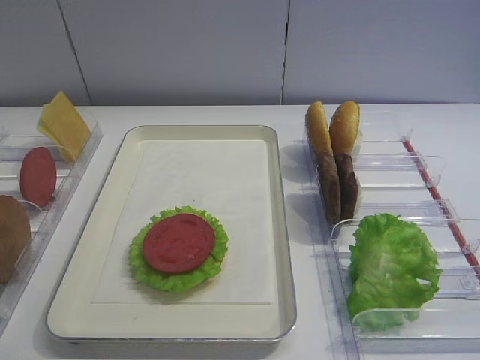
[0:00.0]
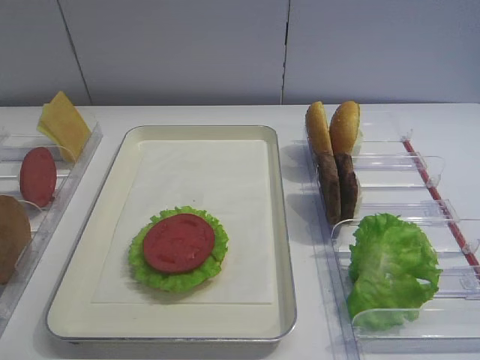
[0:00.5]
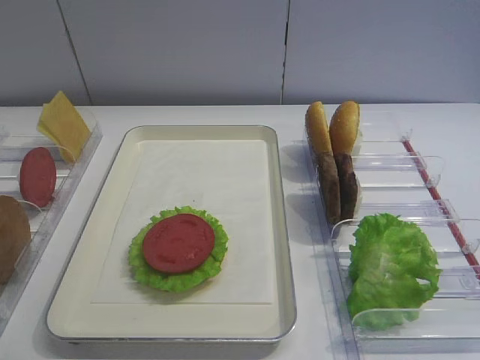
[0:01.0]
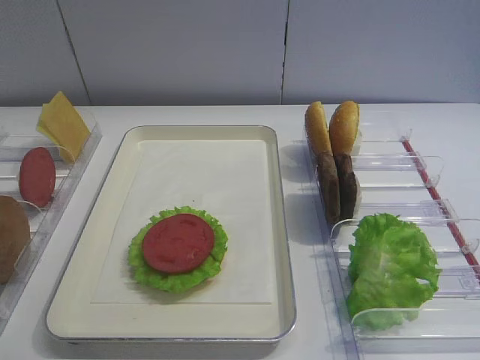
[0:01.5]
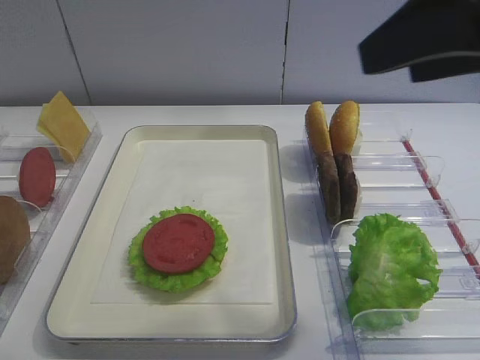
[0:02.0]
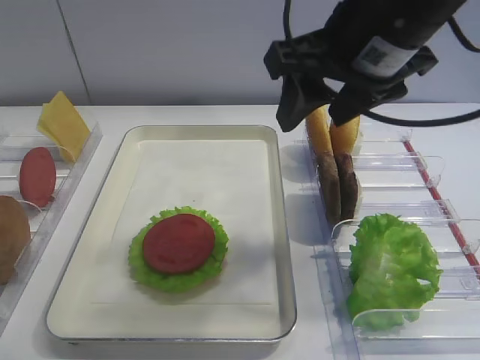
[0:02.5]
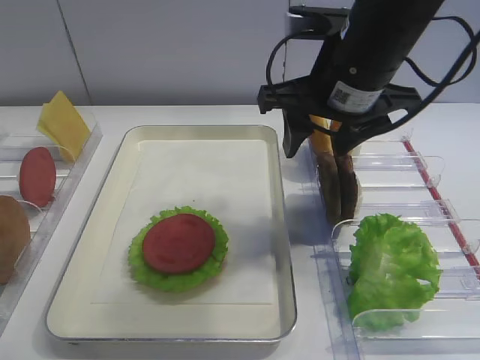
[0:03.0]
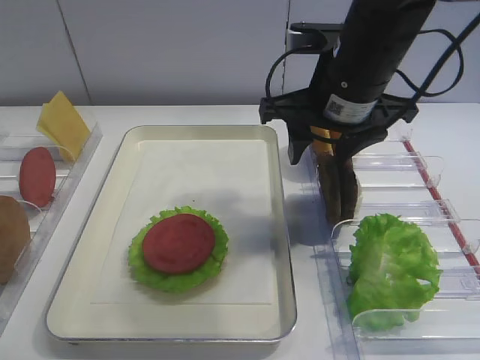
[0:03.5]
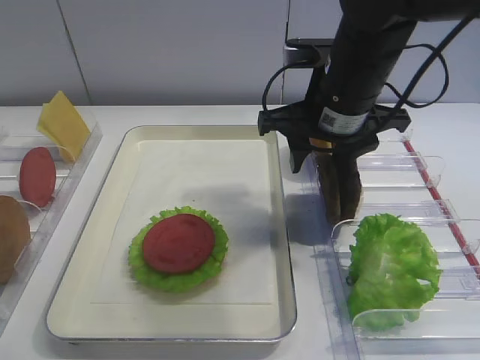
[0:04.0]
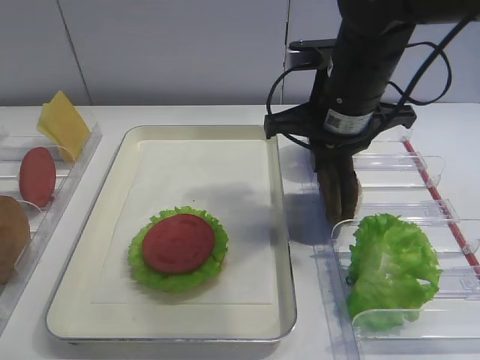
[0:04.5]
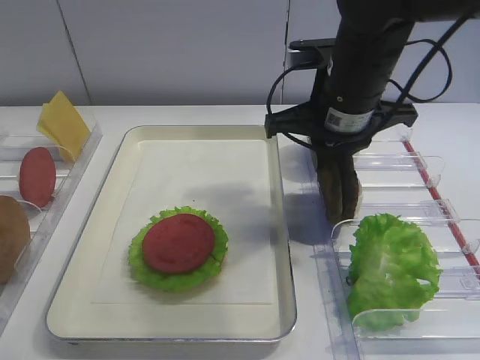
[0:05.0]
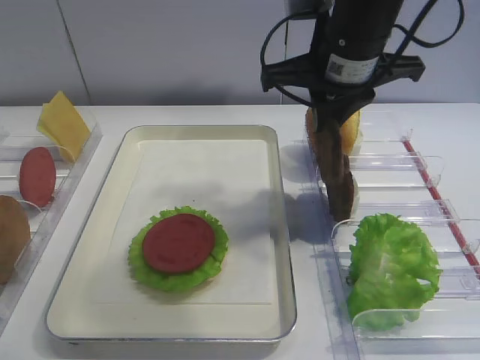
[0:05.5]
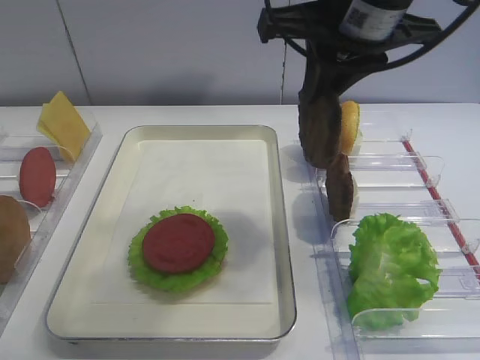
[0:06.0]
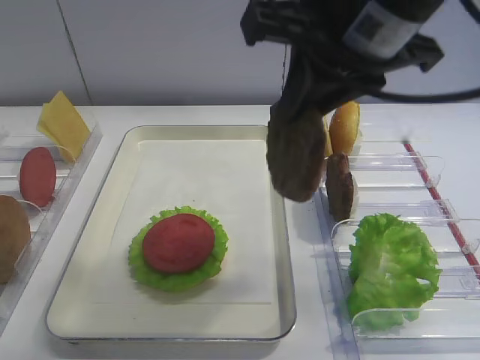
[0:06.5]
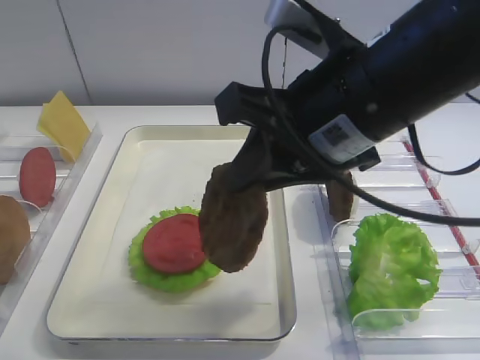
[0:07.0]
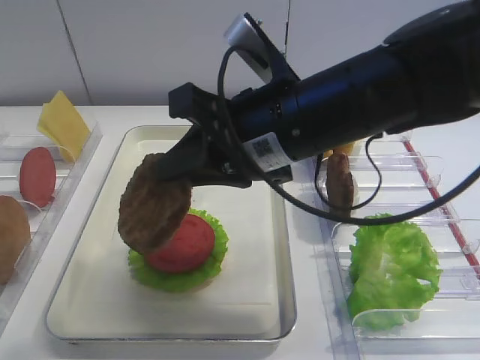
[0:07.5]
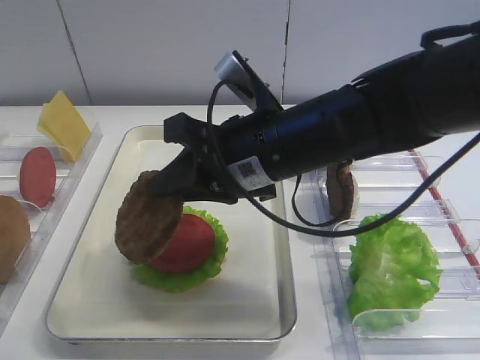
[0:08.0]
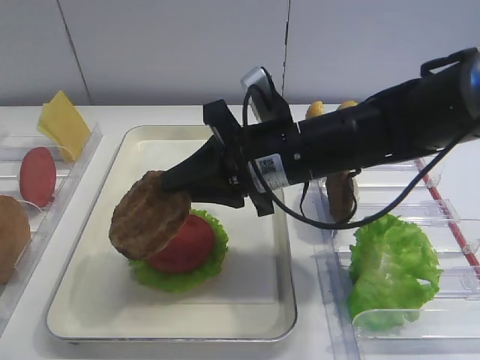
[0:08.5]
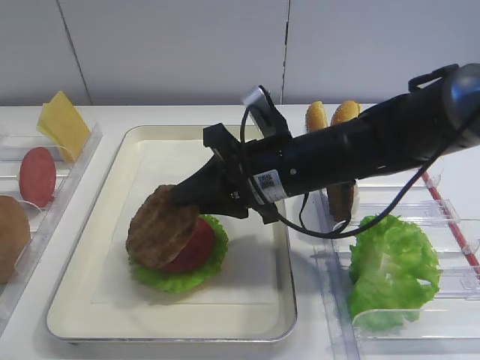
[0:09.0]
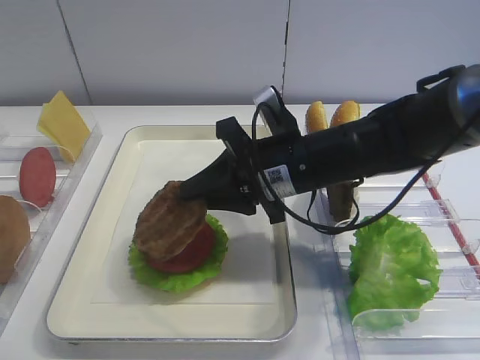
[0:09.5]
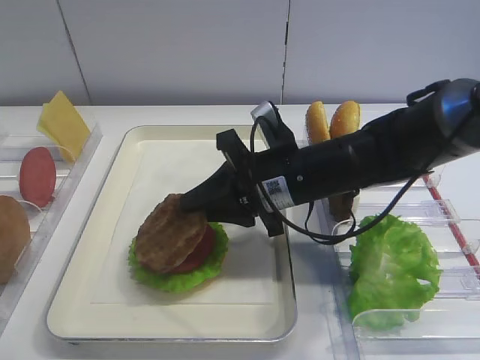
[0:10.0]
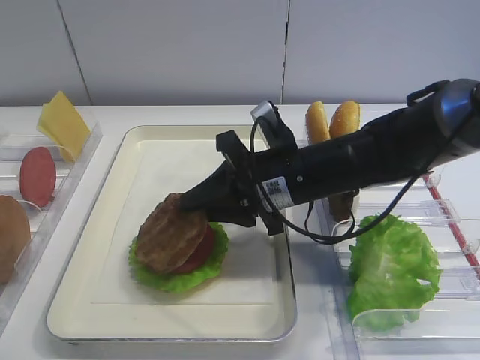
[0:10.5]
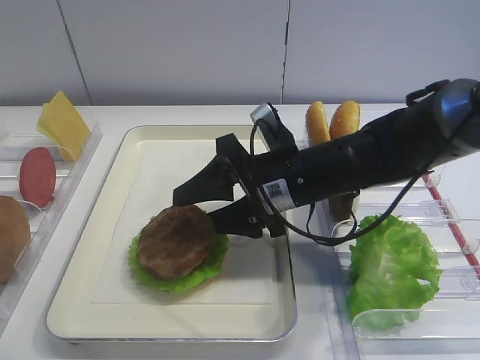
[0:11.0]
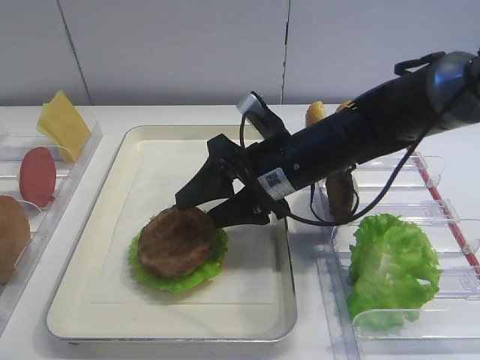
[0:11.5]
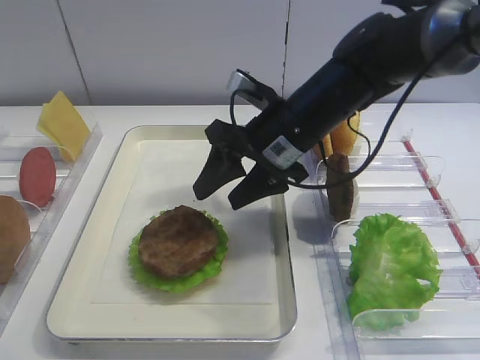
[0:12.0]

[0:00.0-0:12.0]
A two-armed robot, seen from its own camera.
Step, 0:00.0 to 0:05.0: Pick up the cutlet with the right gripper.
Step, 0:05.5 to 0:11.5: Place the cutlet on the tomato slice with the right gripper.
0:02.0 to 0:04.0: The right gripper shifts approximately 20 cm forward, downward and to the left.
0:04.0 to 0:06.0: The right gripper goes roughly 10 cm upward, and closes up.
0:06.0 to 0:08.0: The right gripper heads downward and to the left, covering roughly 15 cm.
0:08.0 to 0:10.0: The right gripper shifts some 5 cm downward.
0:10.0 to 0:12.0: The right gripper moves approximately 5 cm, and opens.

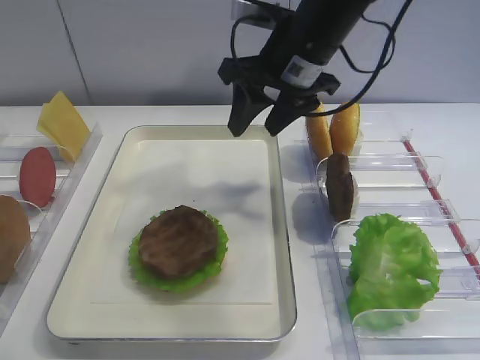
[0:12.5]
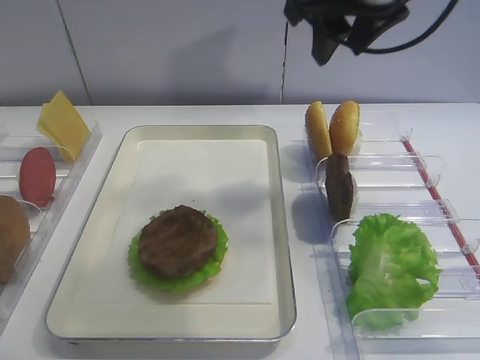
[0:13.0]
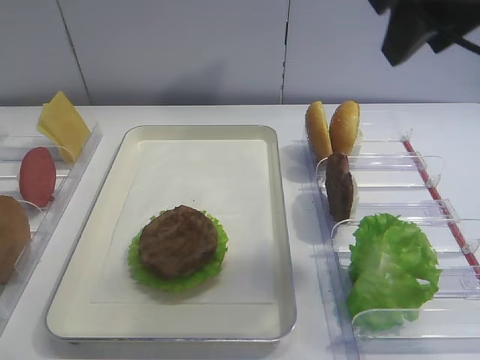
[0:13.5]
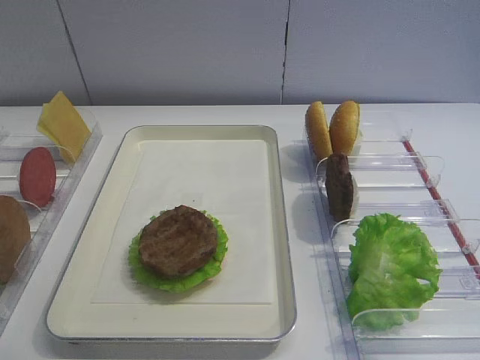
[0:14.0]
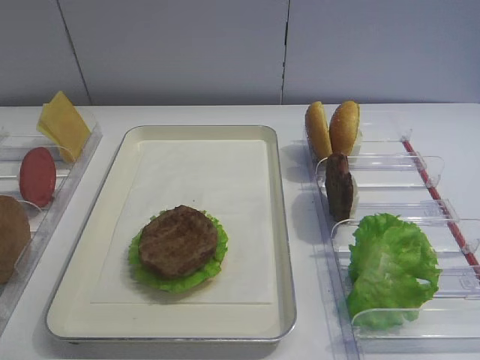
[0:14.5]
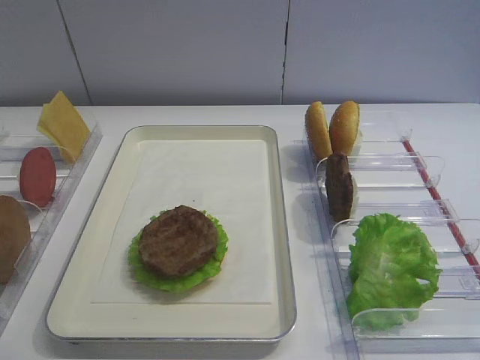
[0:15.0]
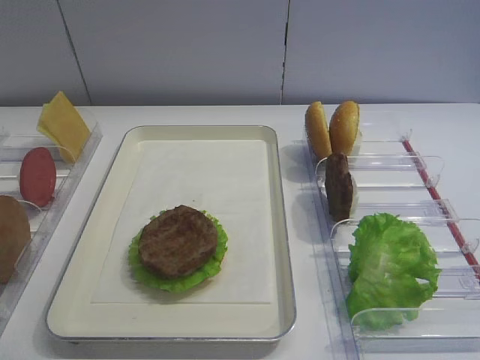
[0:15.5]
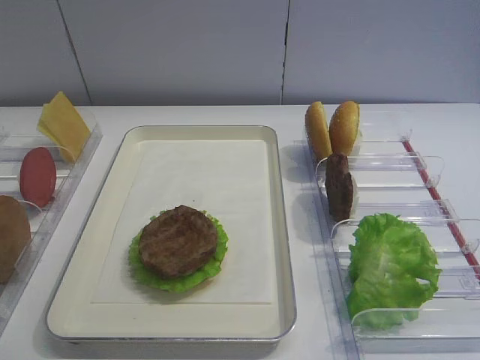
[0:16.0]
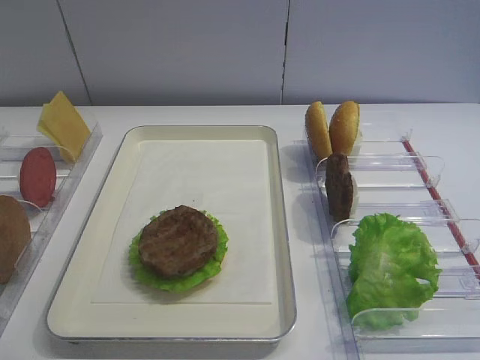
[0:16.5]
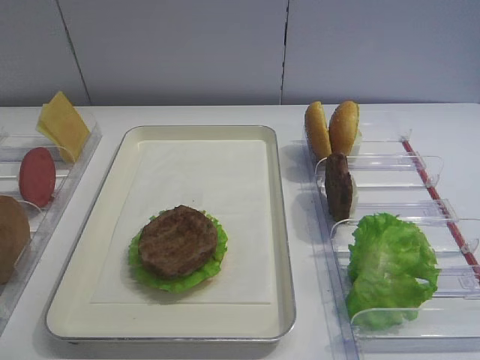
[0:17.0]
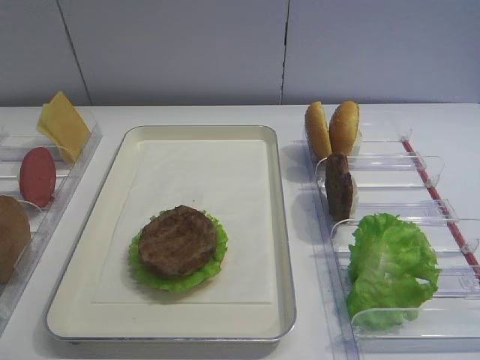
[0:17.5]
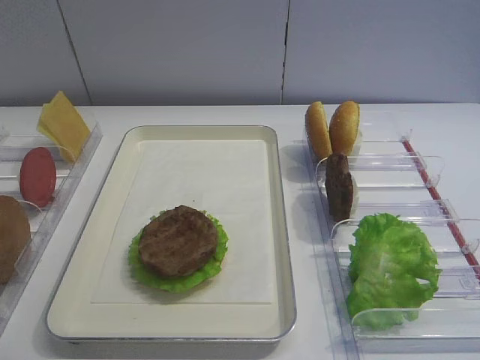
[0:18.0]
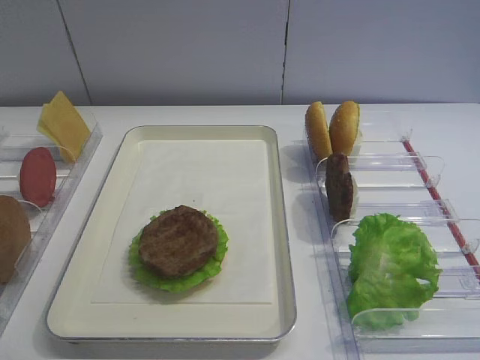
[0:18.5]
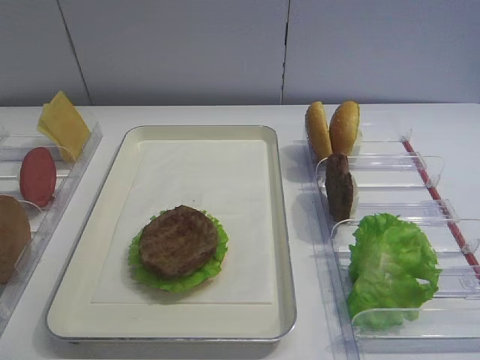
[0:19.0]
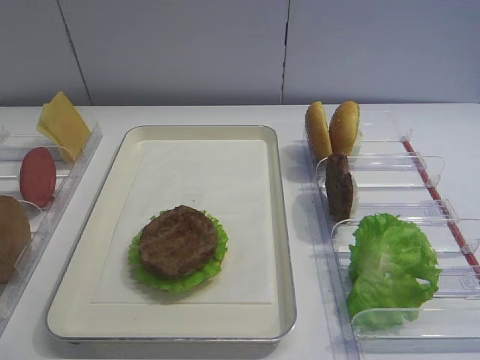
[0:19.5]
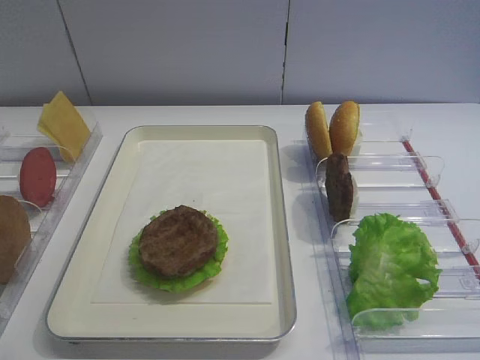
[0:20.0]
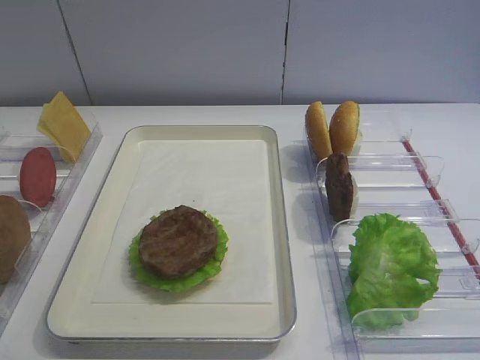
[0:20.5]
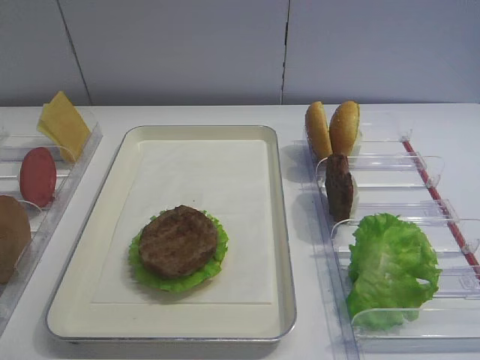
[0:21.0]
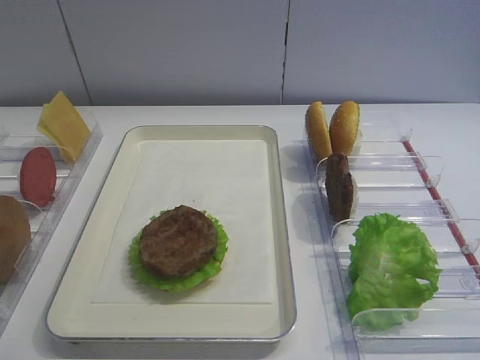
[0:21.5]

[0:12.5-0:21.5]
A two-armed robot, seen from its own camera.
0:12.5 to 0:14.5: The right gripper is displaced backward and to the right by approximately 40 cm.
0:19.5 to 0:21.5: Both grippers stay about where they are.

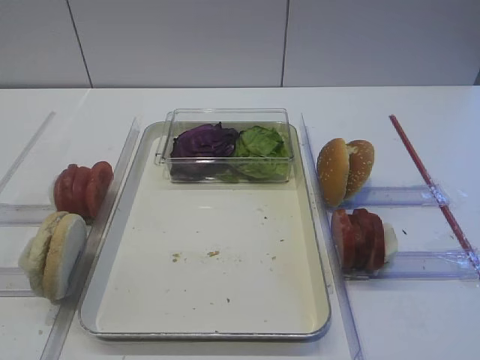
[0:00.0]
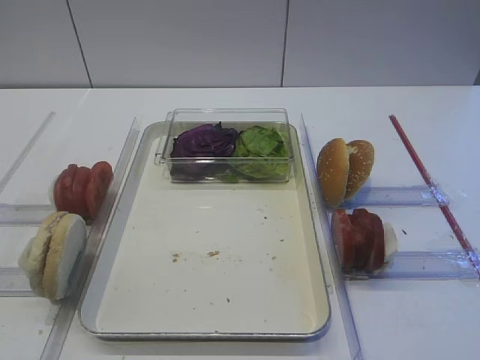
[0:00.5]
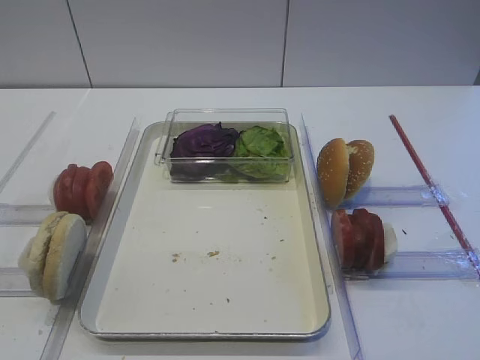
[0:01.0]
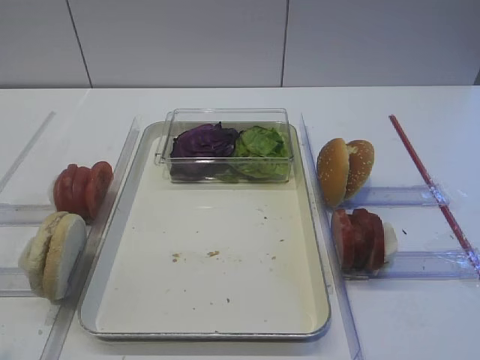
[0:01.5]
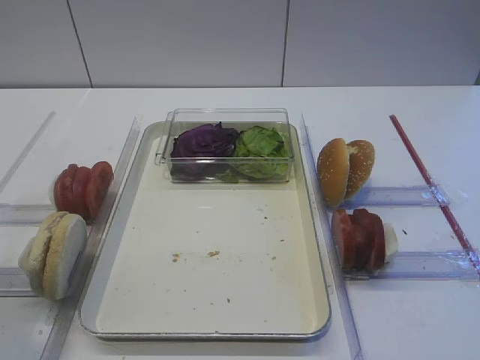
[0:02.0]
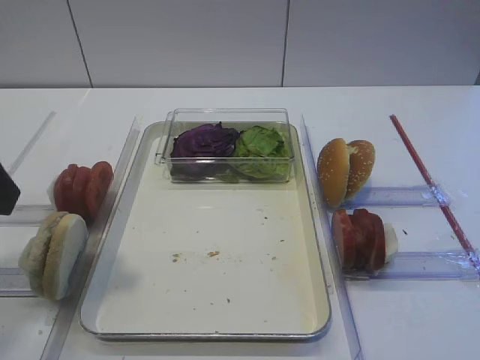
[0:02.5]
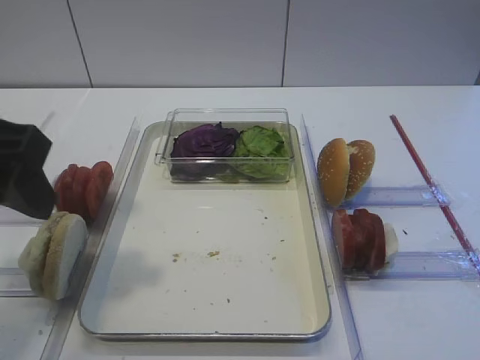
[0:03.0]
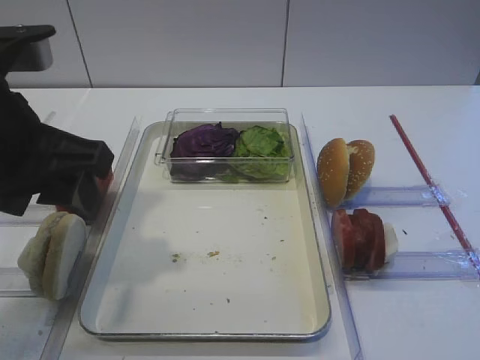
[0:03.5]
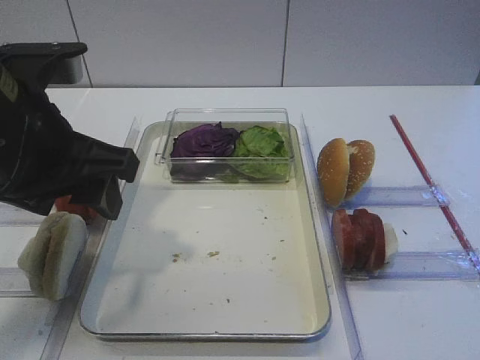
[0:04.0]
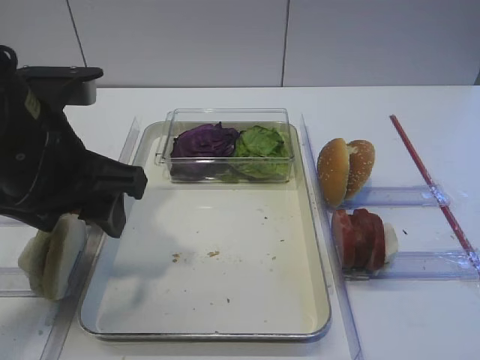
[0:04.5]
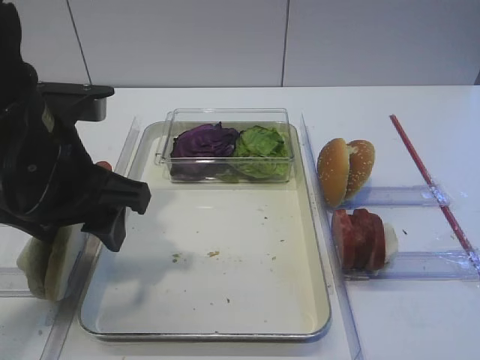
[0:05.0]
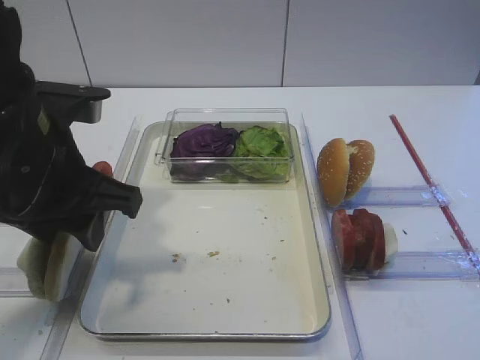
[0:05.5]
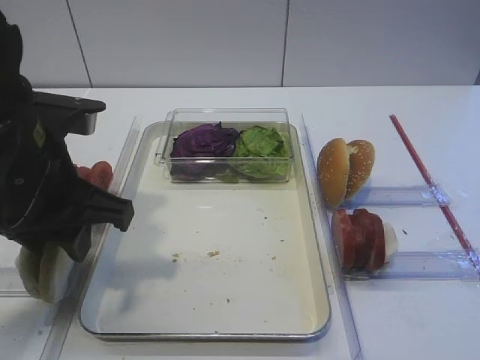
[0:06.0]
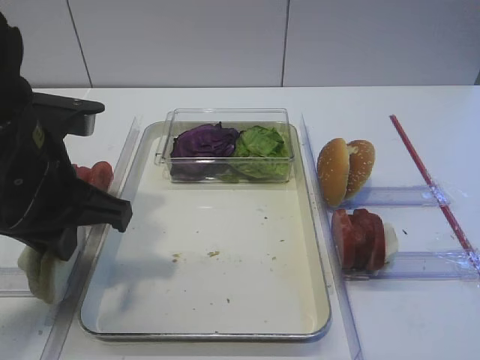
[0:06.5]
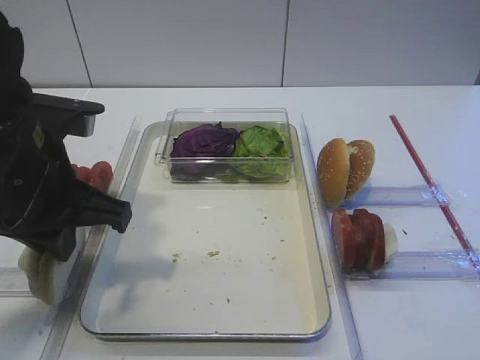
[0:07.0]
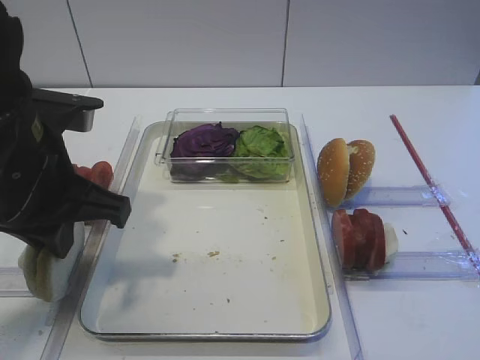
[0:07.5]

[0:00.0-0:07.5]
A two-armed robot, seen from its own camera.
0:02.0 to 0:04.0: The left gripper heads forward, to the right and downward, covering roughly 20 cm.
0:04.0 to 0:05.5: The grippers stay close to where they were, moving slightly.
0:05.5 to 0:07.5: The left gripper closes up.
